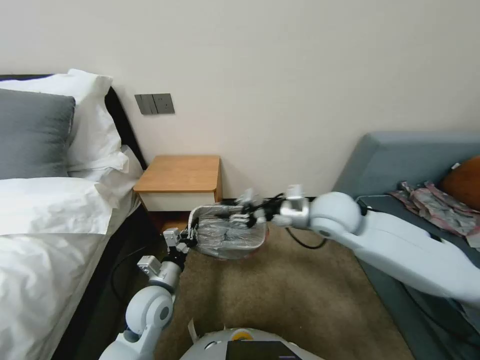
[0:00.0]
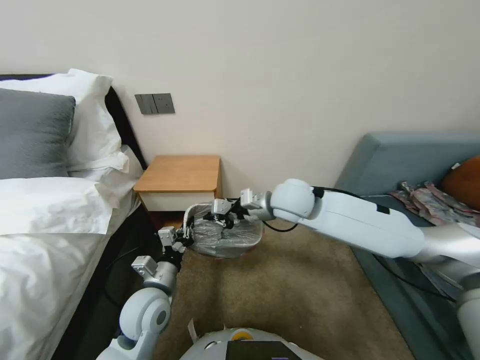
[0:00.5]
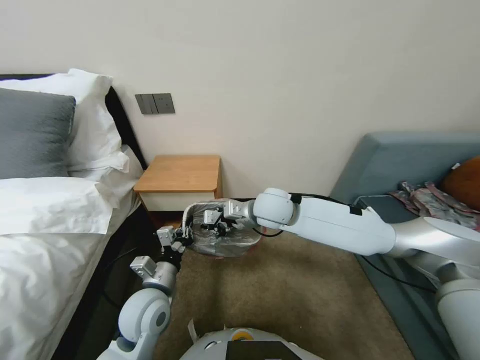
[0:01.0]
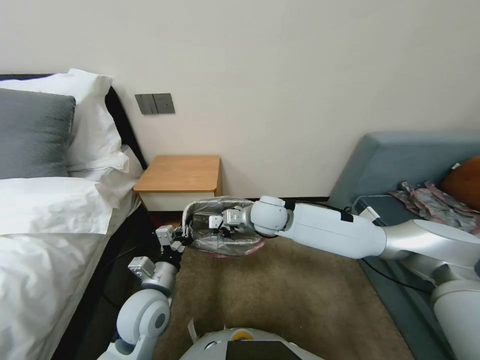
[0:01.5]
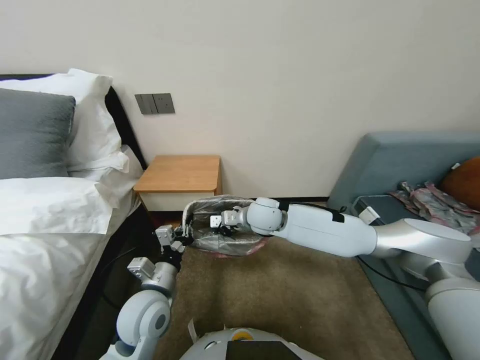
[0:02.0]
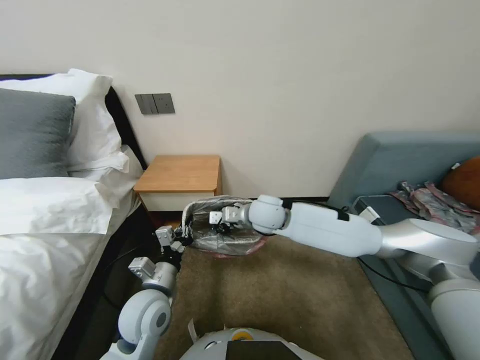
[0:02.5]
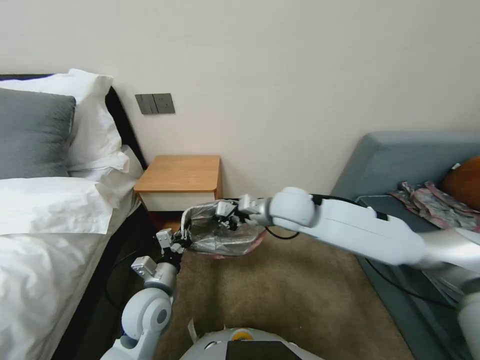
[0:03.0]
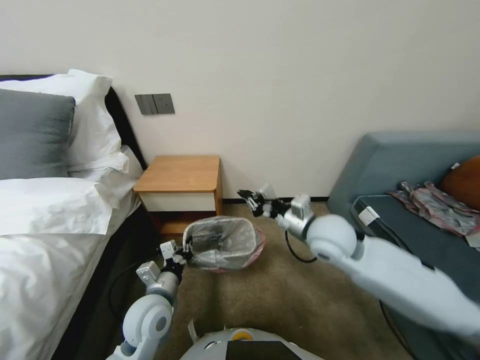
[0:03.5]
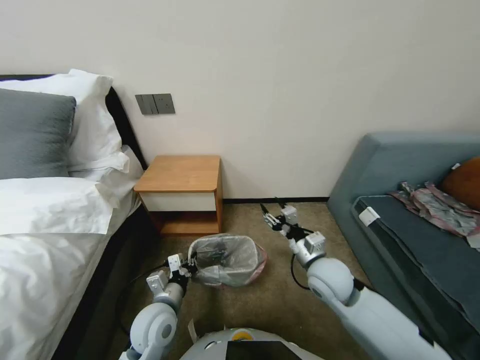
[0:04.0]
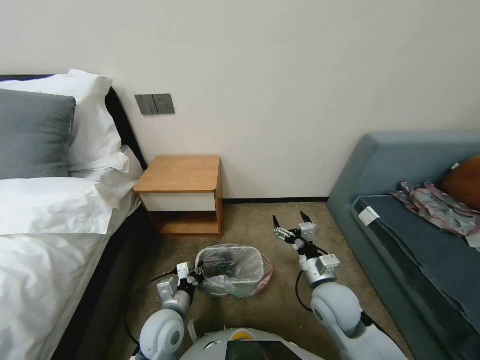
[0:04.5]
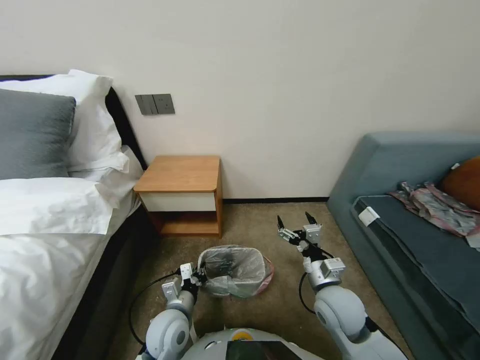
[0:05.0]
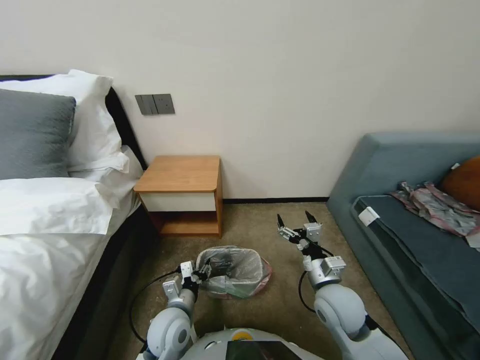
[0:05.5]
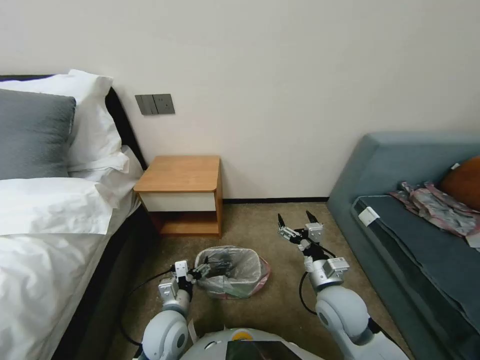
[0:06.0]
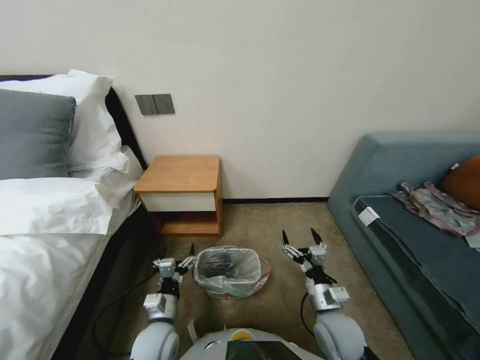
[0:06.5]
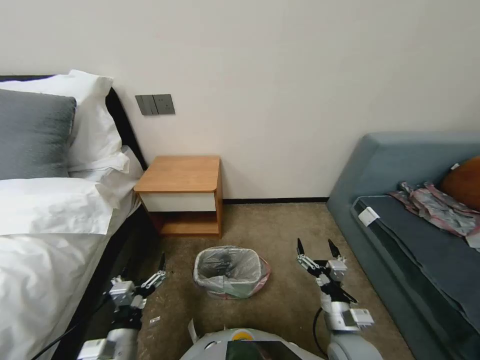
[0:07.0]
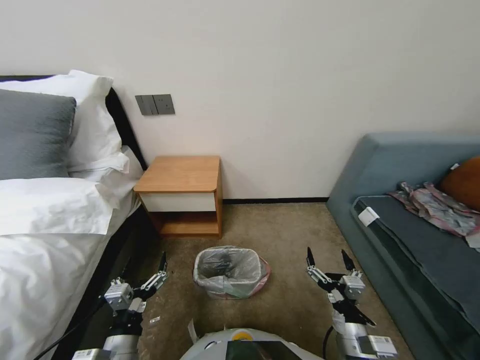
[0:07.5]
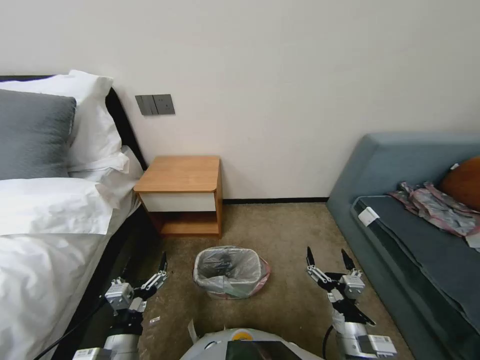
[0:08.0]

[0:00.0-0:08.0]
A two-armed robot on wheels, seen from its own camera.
Task of the whole recording: Pick up the garbage bag from the table and place it over the trash can.
0:00.0 to 0:02.0: The right gripper travels to the left, downward and forward by approximately 15 cm, and closes.
0:02.0 to 0:04.0: The right gripper is displaced to the right, backward and downward by approximately 20 cm, and opens its fingers. The left gripper moves downward, approximately 5 cm.
0:04.0 to 0:06.0: The left gripper opens up; the right gripper is displaced backward by roughly 5 cm, and opens.
0:06.0 to 0:08.0: The left gripper moves backward and to the left, roughly 15 cm. Meanwhile the right gripper travels backward by roughly 10 cm.
